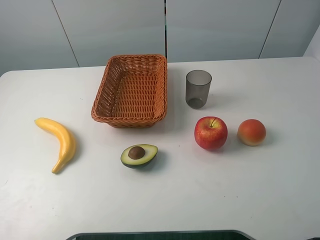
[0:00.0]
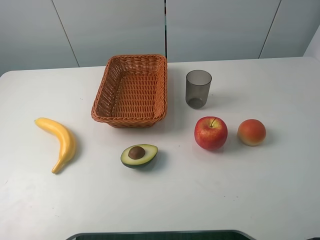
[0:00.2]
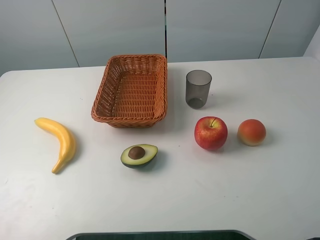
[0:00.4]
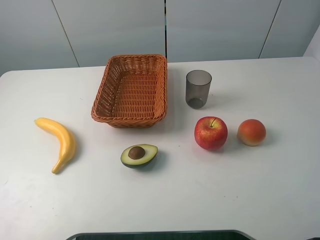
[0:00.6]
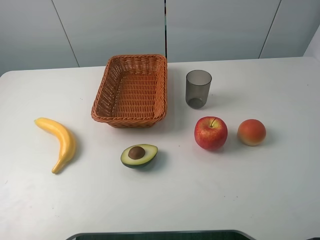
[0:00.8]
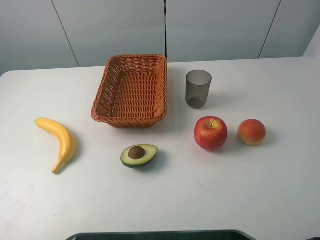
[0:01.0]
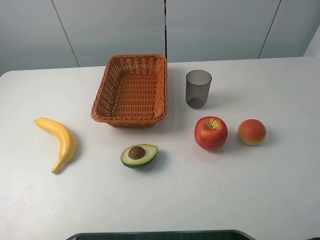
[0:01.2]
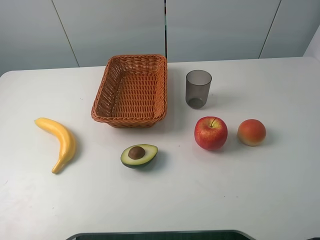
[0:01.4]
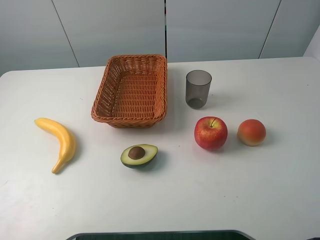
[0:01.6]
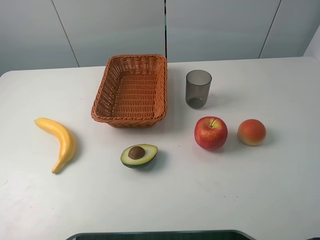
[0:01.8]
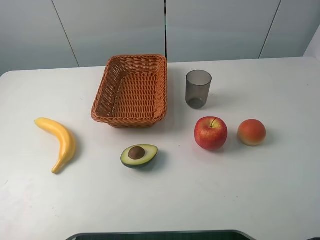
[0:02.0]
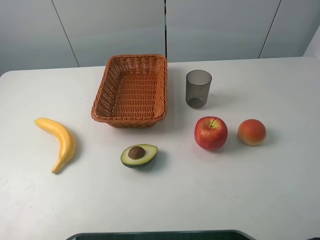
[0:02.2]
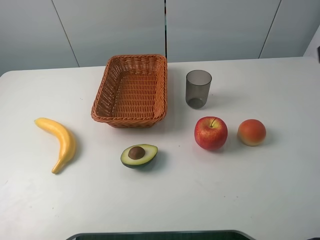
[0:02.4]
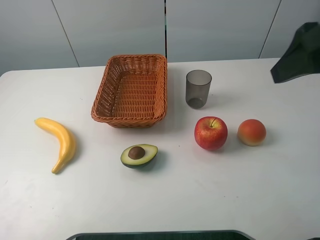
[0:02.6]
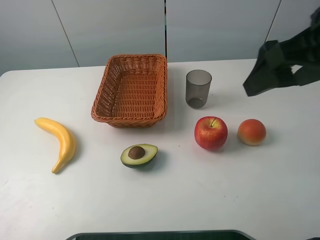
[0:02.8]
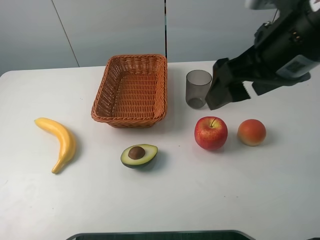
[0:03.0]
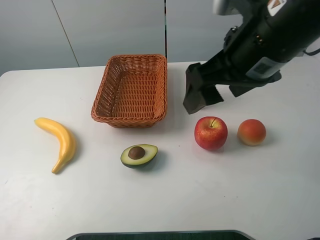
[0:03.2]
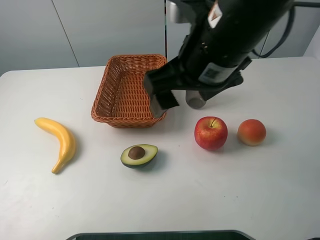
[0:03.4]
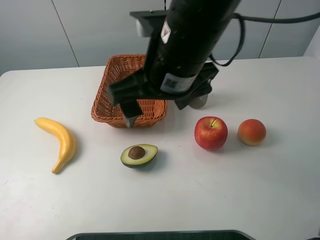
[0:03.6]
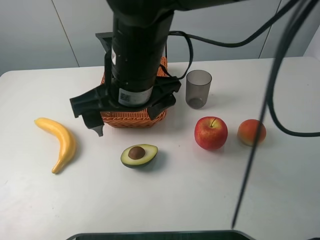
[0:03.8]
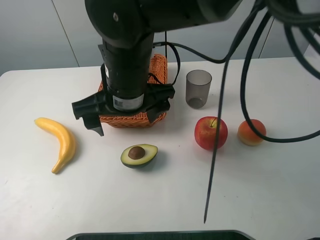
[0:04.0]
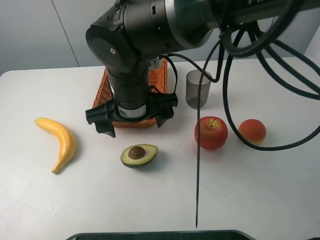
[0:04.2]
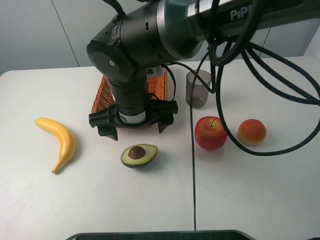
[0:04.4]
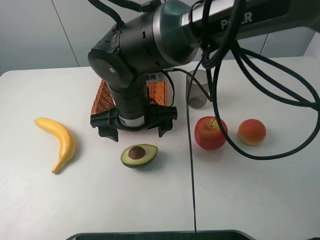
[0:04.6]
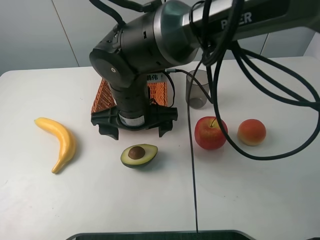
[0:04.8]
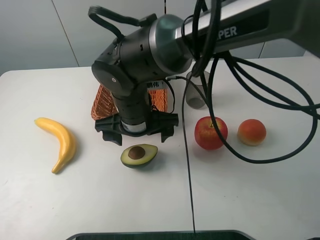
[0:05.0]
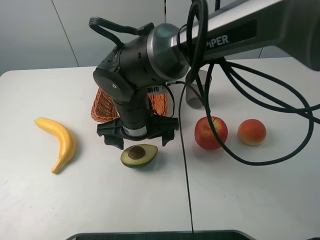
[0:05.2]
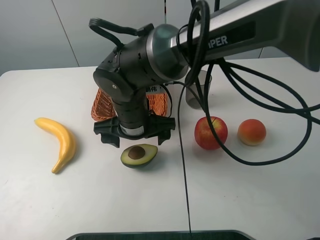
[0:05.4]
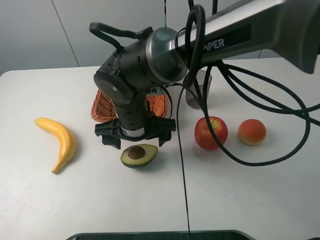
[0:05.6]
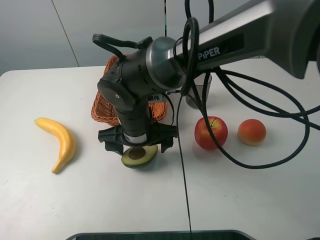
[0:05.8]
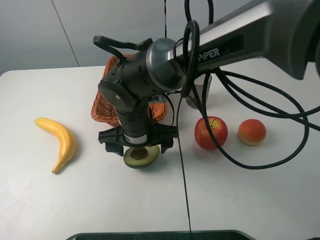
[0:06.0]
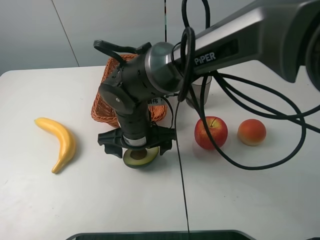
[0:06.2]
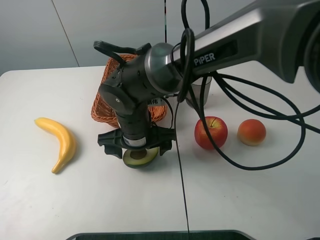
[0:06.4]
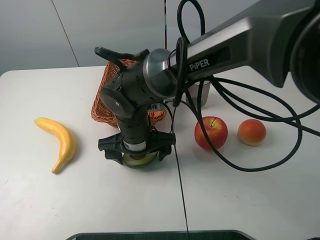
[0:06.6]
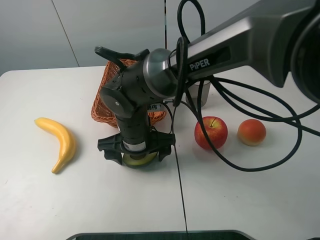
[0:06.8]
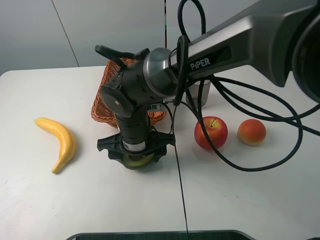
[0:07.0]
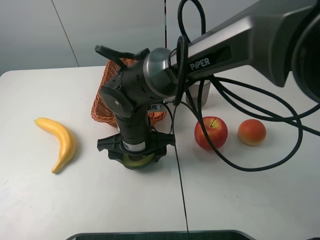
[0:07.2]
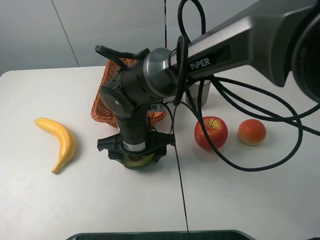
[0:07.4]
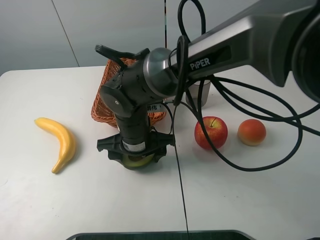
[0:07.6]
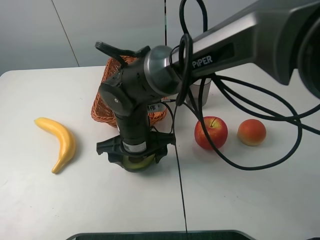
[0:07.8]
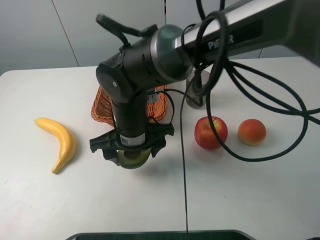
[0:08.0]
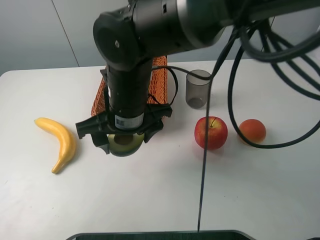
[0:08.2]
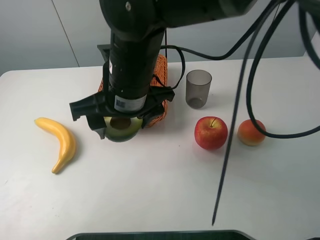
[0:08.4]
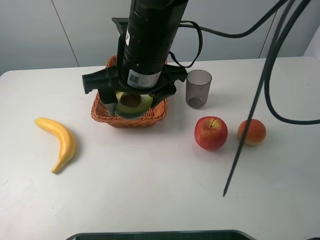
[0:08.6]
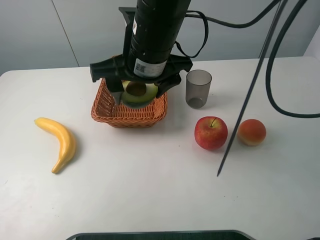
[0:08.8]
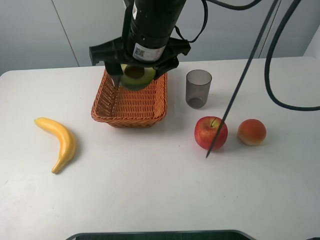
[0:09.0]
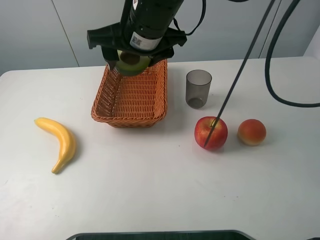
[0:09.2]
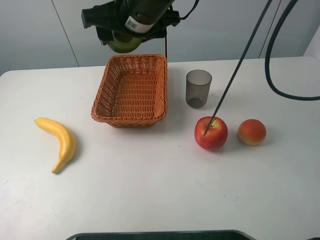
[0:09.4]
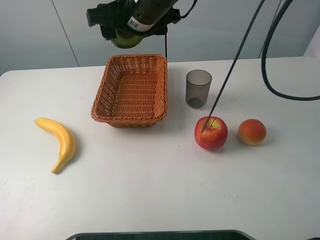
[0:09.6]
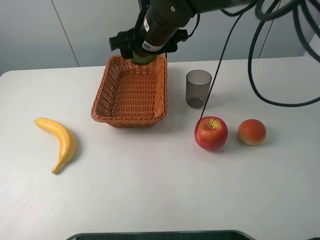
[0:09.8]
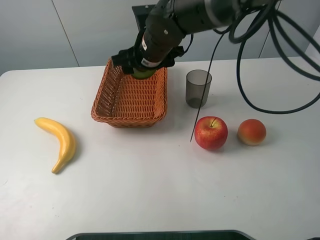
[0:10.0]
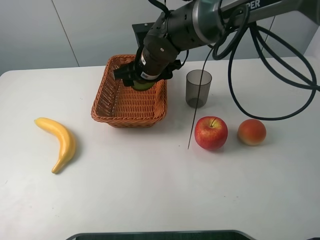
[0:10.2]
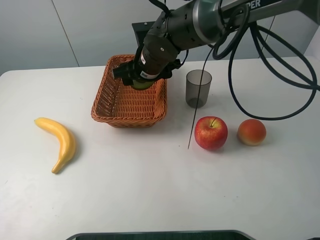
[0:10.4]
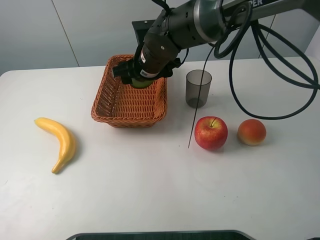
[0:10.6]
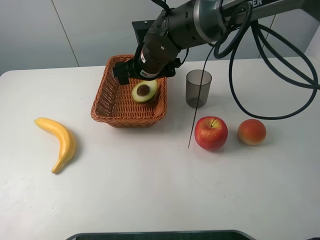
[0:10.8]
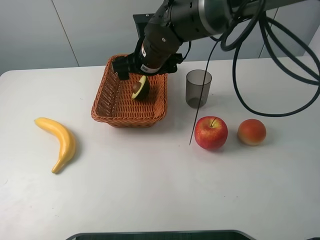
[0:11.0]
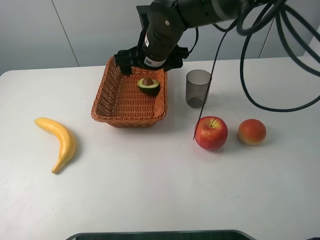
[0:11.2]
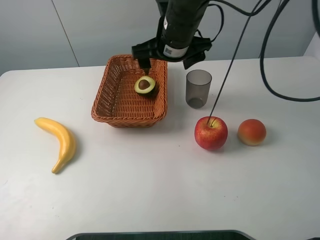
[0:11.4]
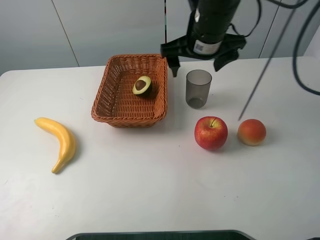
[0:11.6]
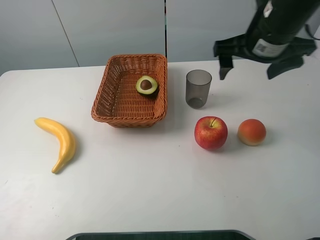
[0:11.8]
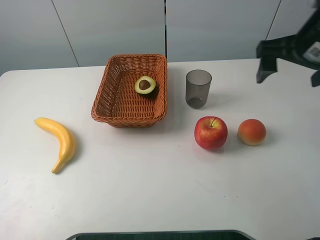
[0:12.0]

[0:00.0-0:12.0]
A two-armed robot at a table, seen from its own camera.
Task of the whole recording: randomly pick up an item from the table and put it in the basket.
Step, 0:00.0 to 0:07.4: Grasp the avocado with the right gripper.
Step, 0:07.6 to 0:11.0: Place the avocado into the basket with the right gripper.
0:00.0 to 0:01.6: Both grippers stay about where they are.
0:01.6 to 0:03.0: The right gripper moves forward and to the left, about 25 cm.
0:03.0 to 0:04.4: The right gripper travels to the left and downward by roughly 25 cm.
0:04.4 to 0:06.0: The right gripper heads downward, covering approximately 5 cm.
0:06.0 to 0:07.6: The right gripper closes.
0:07.6 to 0:09.0: The right gripper is displaced upward by about 20 cm.
0:09.0 to 0:10.4: The right gripper moves downward and forward, some 15 cm.
0:10.4 to 0:12.0: The right gripper travels to the right, upward and backward by about 30 cm, and opens.

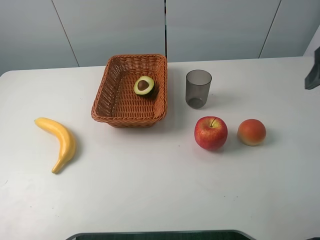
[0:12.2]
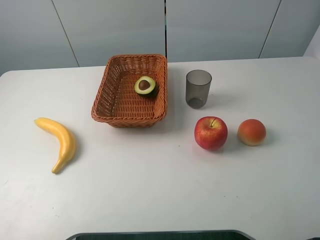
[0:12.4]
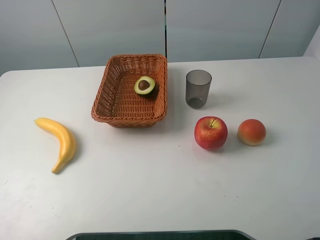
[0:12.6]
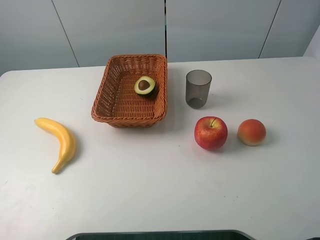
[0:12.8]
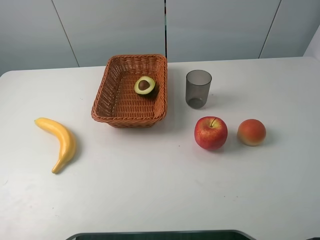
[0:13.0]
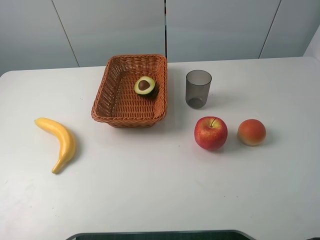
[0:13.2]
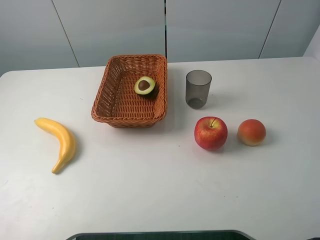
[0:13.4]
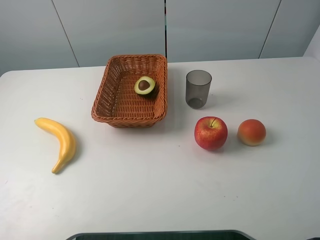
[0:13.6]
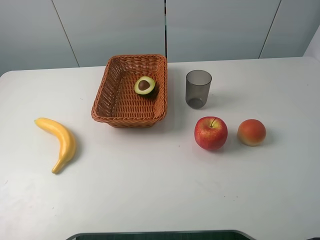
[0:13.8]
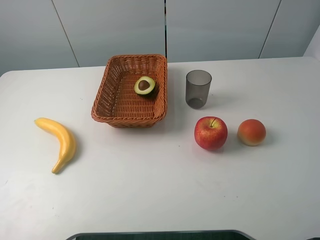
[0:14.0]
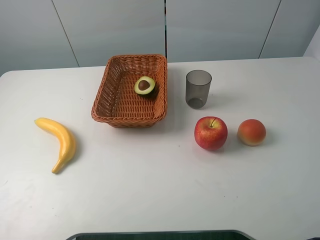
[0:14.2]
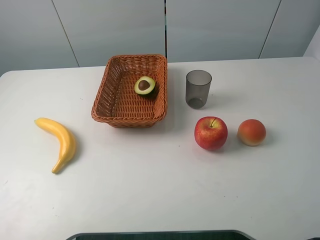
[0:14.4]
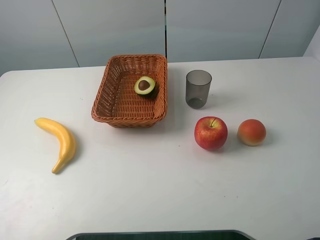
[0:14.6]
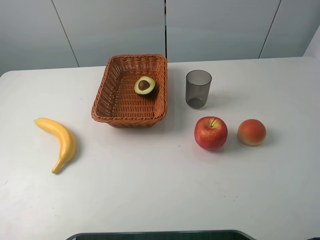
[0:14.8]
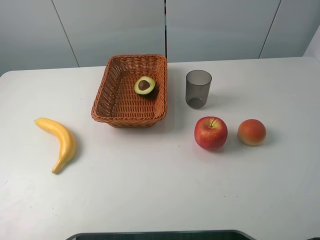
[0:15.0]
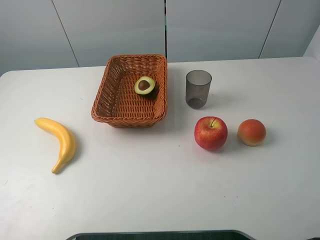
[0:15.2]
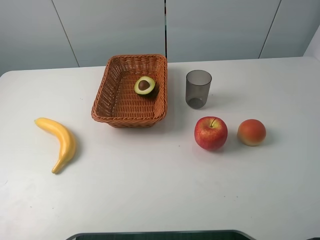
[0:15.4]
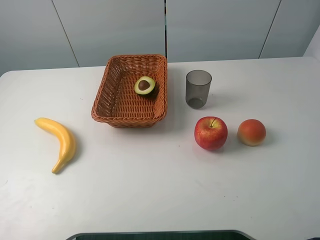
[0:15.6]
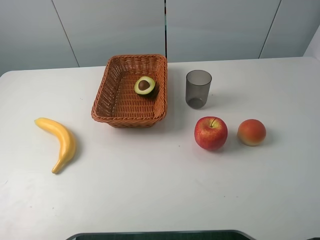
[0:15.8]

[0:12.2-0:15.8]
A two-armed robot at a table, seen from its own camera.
Task of the whole recording: randomly pick up an item from the table and put it in the basket.
0:12.2 to 0:14.0: The right gripper shifts approximately 20 cm backward.
